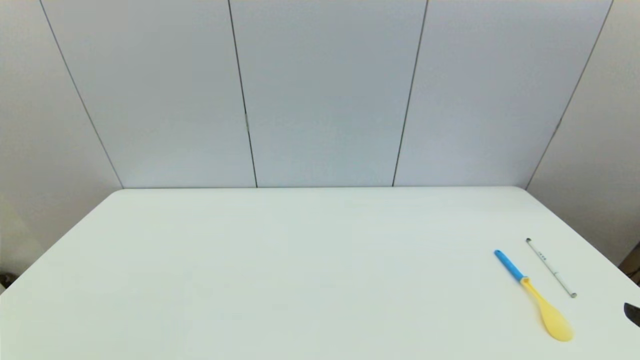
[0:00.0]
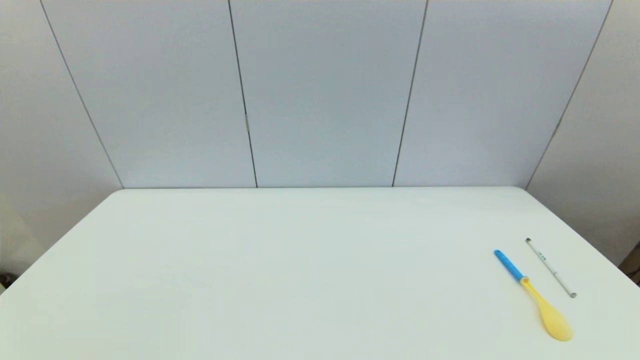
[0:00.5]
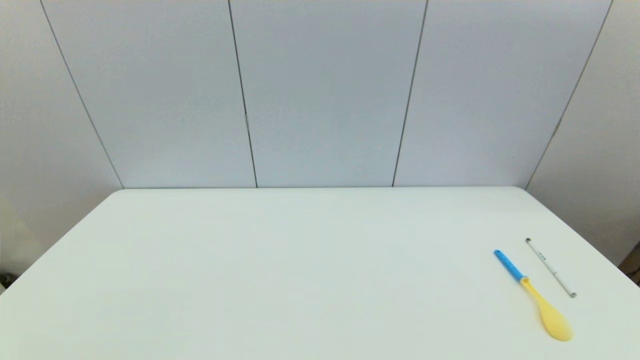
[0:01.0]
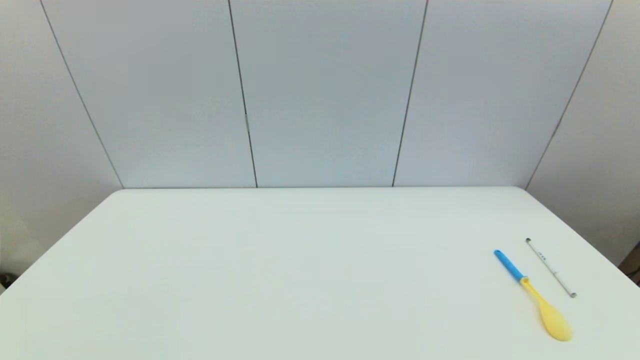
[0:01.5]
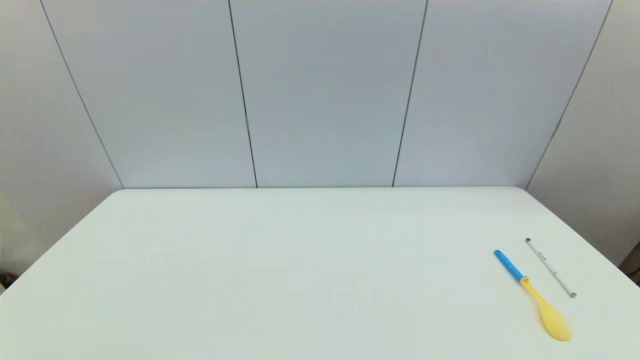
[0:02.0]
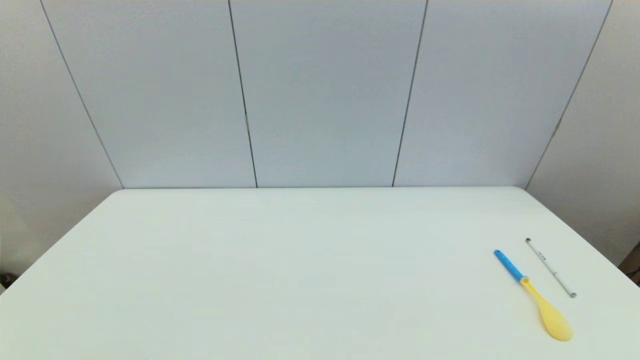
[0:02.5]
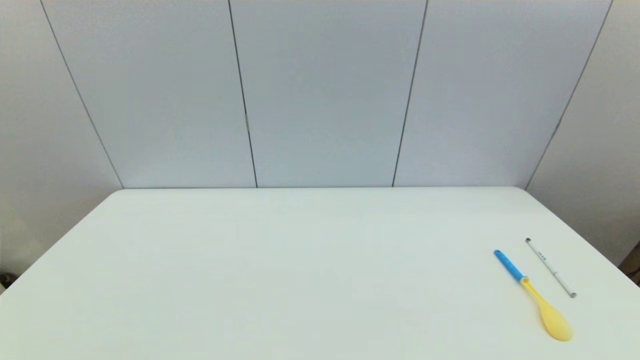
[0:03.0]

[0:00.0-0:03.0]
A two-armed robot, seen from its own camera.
Task of the whole recording: put the pen in the designated position.
0:01.5 to 0:03.0: Both grippers stay about where they are.
